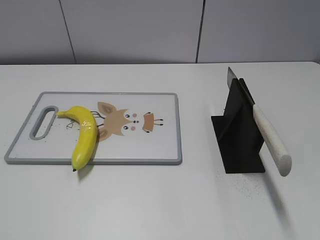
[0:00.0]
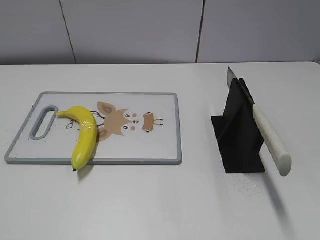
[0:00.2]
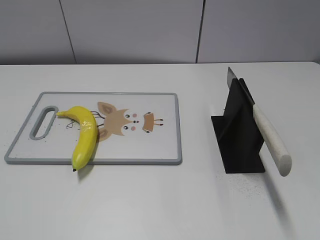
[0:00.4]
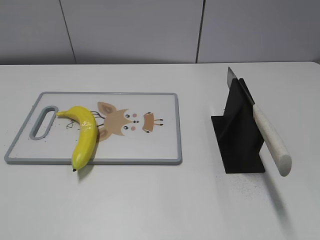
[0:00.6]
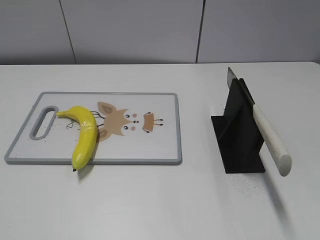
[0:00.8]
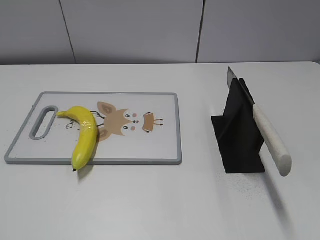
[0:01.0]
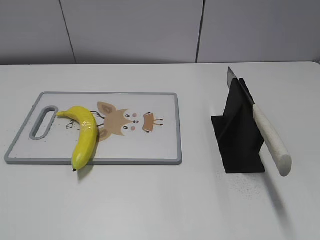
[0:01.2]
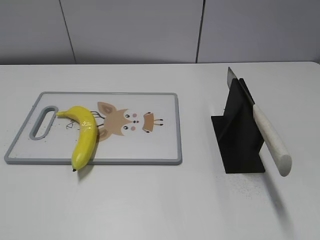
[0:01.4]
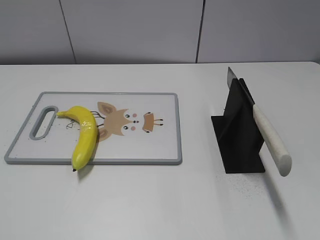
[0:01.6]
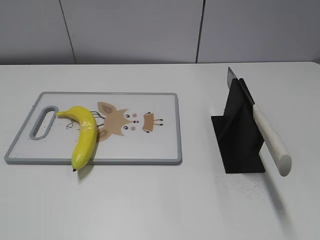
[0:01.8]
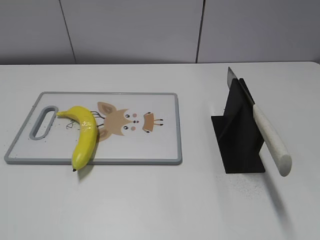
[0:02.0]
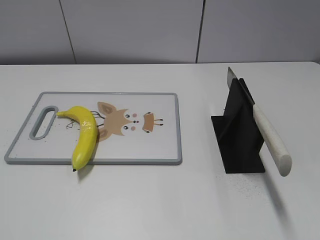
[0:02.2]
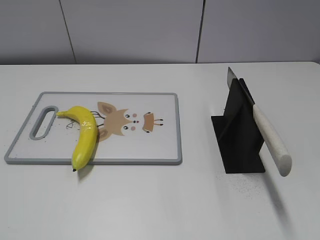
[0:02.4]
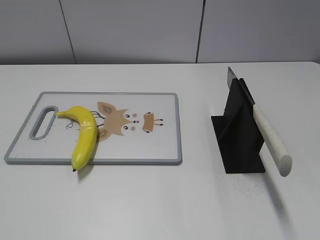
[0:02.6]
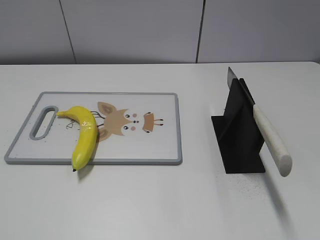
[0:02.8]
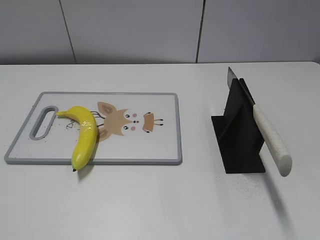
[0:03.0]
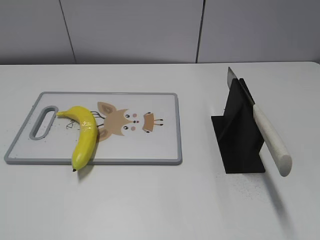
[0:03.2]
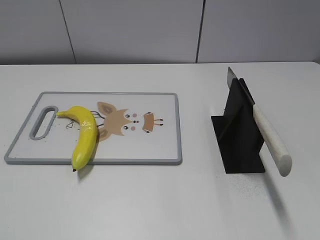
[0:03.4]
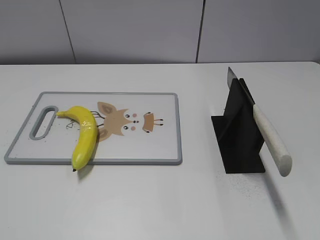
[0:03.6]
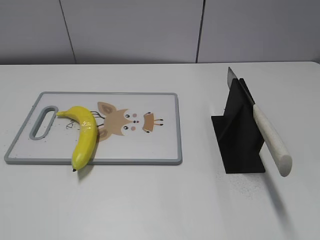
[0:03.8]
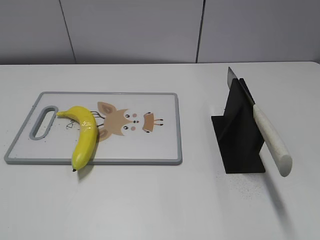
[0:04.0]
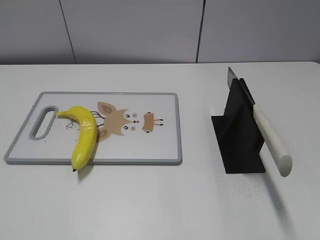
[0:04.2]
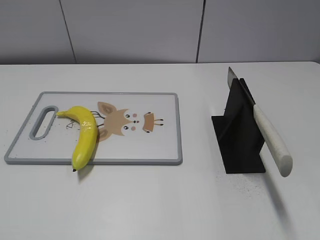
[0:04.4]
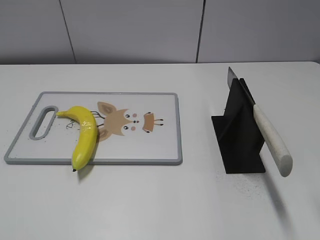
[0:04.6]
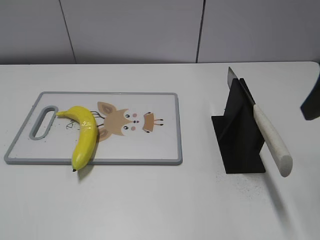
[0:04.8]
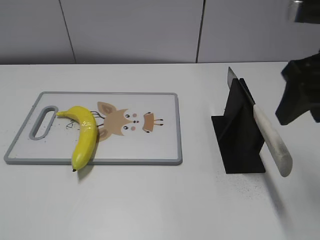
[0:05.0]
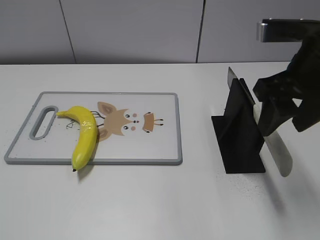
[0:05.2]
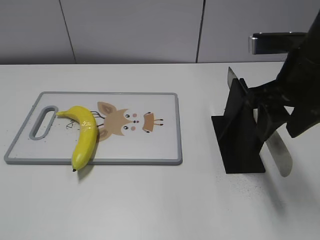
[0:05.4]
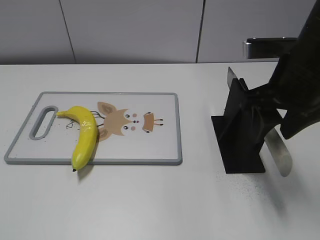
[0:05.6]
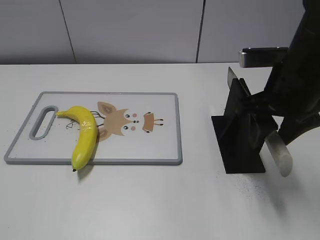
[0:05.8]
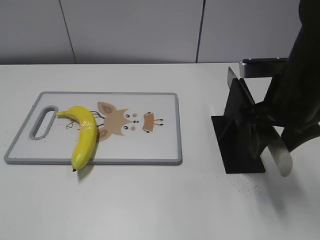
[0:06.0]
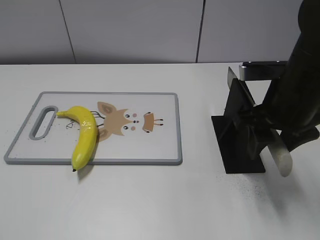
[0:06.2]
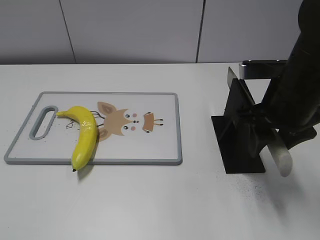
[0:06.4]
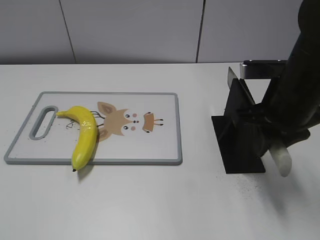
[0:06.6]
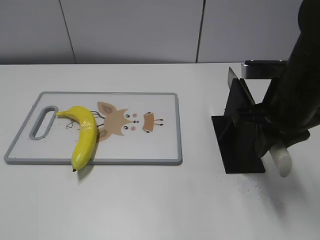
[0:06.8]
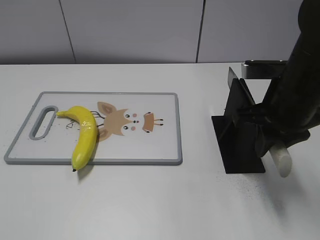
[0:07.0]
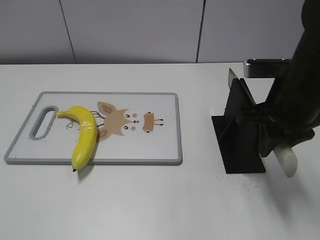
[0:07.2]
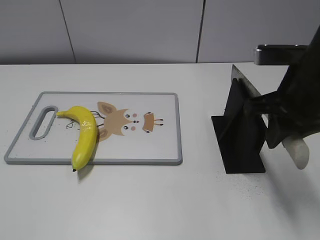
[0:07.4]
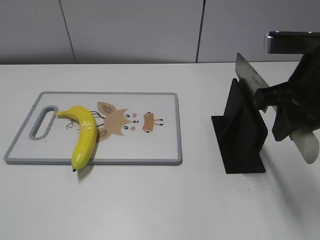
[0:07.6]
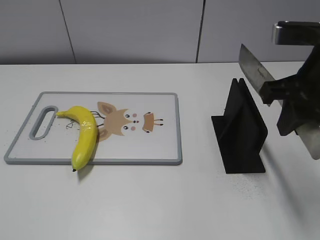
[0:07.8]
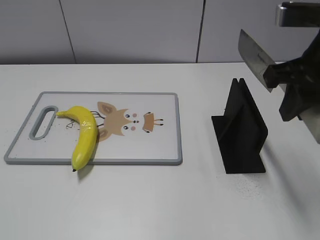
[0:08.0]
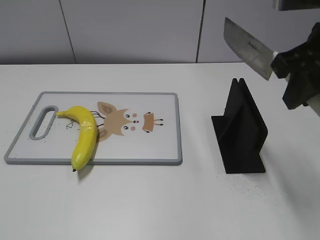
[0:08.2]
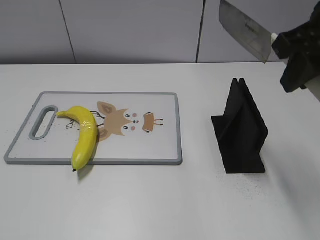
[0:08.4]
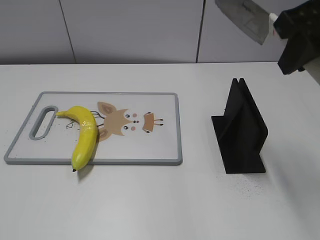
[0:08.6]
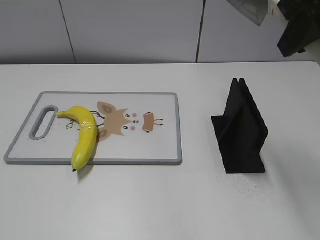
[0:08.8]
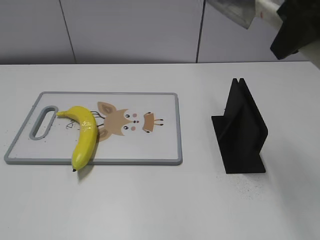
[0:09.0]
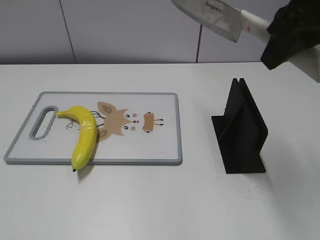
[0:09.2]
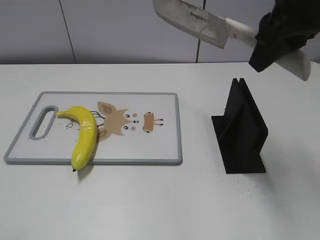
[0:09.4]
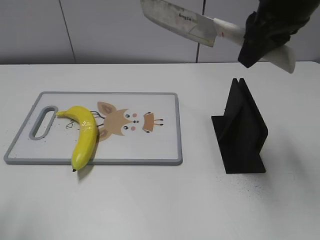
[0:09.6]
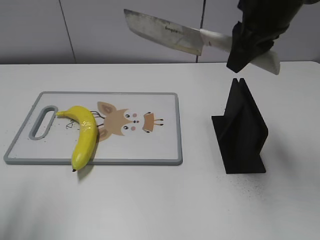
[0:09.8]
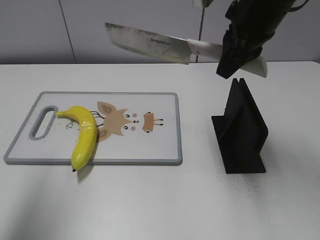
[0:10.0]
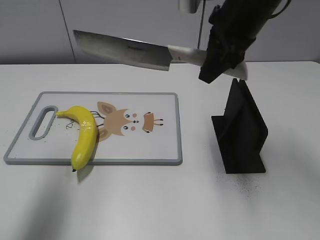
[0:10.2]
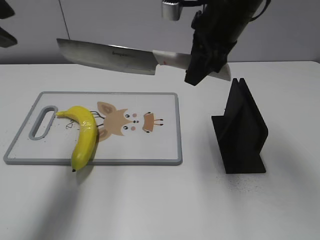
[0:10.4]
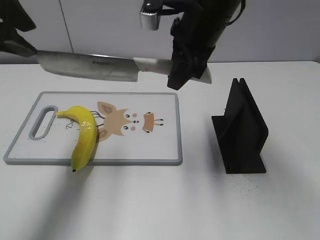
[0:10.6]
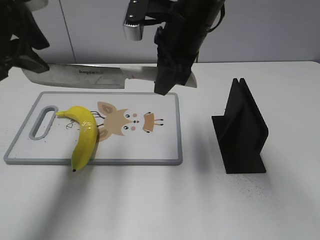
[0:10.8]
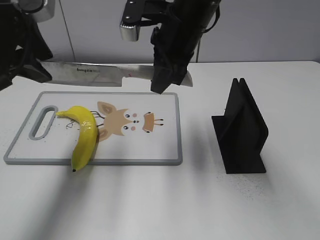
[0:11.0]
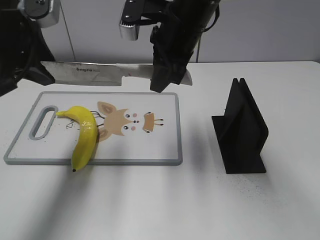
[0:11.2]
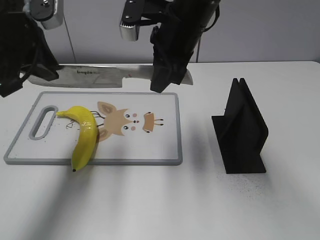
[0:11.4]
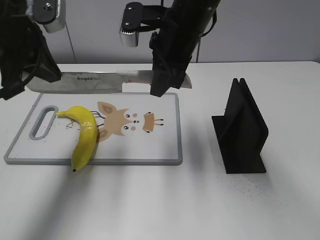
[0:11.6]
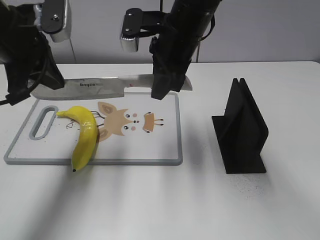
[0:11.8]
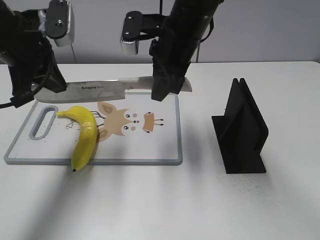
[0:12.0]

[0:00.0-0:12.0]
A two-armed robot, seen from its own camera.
Task of the whole recording: cut plastic banana.
Step, 0:00.0 to 0:08.6: Grab the knife handle with your right hand.
0:04.4 to 0:06.0: The right gripper heads forward, to the left and downward, covering approximately 15 cm.
0:06.0 to 0:07.6: The right gripper closes up.
0:07.6 to 0:09.0: The right gripper is displaced upward by some 10 cm.
0:09.0 to 0:10.4: The right gripper travels forward, downward and to the left by about 15 cm, while the left gripper shifts about 25 cm forward.
0:10.4 to 0:12.0: The right gripper shifts some 10 cm to the left and downward. The left gripper goes about 15 cm downward and forward, and closes.

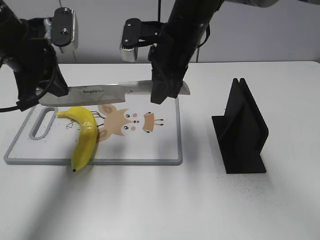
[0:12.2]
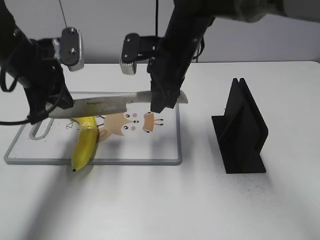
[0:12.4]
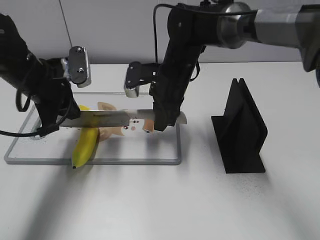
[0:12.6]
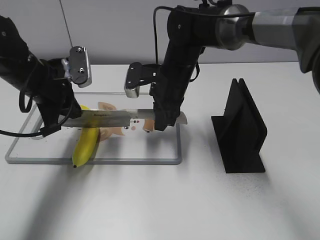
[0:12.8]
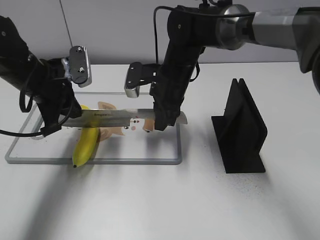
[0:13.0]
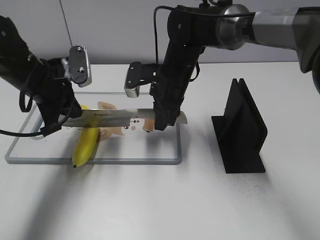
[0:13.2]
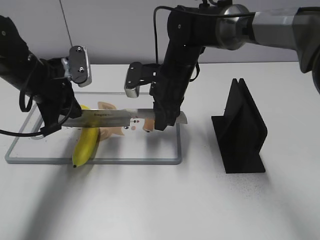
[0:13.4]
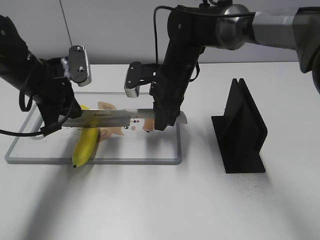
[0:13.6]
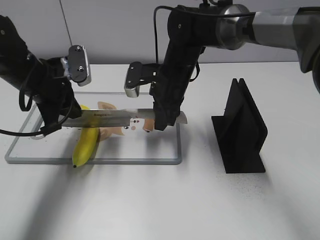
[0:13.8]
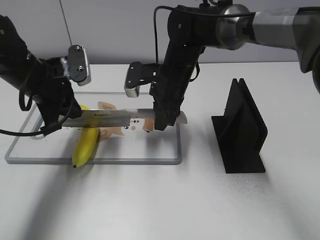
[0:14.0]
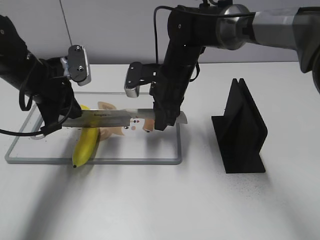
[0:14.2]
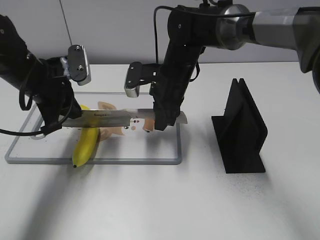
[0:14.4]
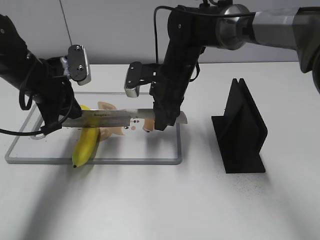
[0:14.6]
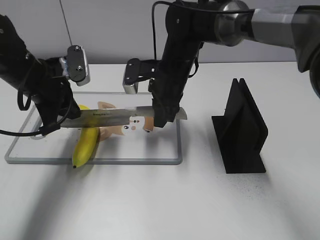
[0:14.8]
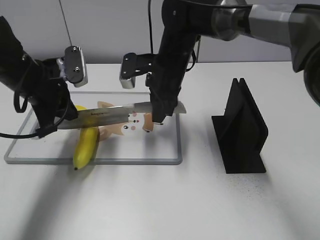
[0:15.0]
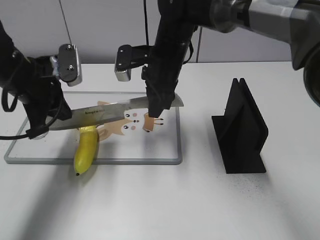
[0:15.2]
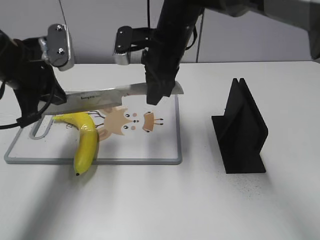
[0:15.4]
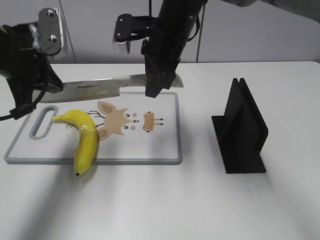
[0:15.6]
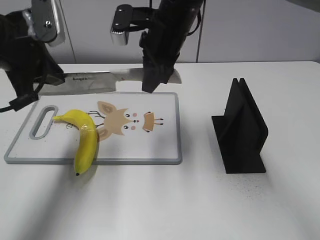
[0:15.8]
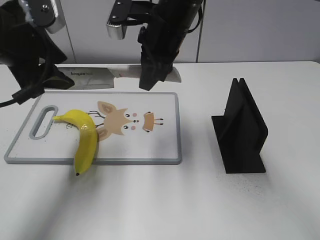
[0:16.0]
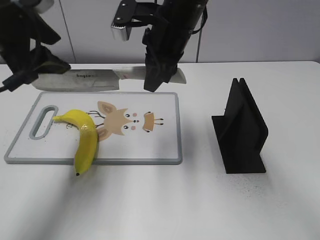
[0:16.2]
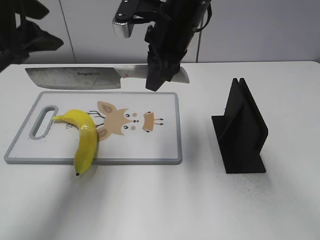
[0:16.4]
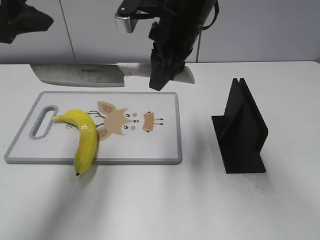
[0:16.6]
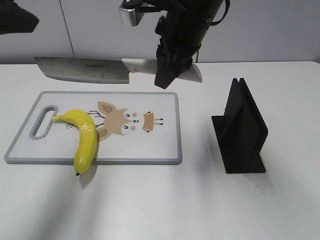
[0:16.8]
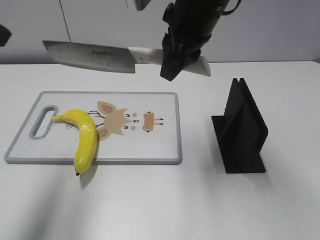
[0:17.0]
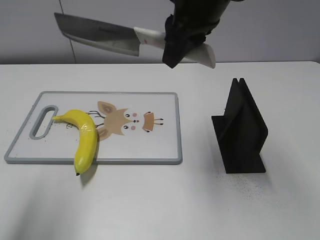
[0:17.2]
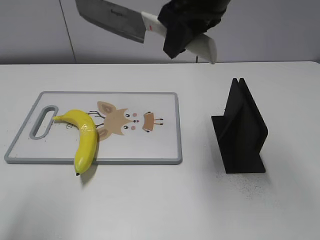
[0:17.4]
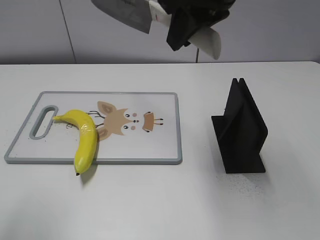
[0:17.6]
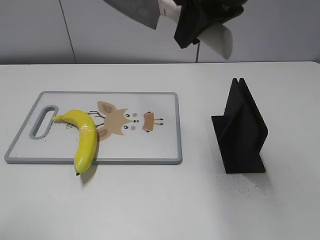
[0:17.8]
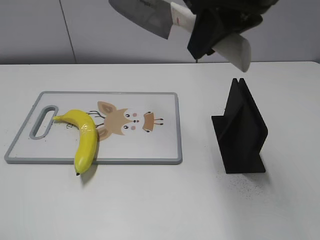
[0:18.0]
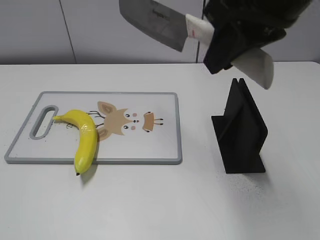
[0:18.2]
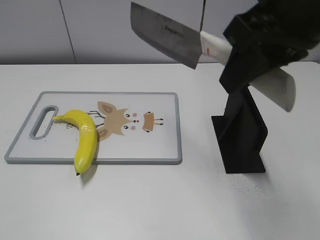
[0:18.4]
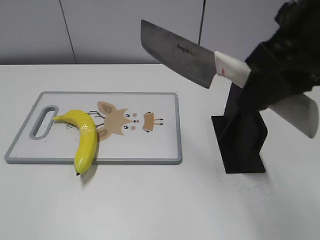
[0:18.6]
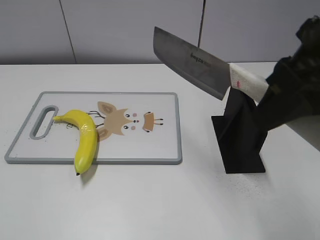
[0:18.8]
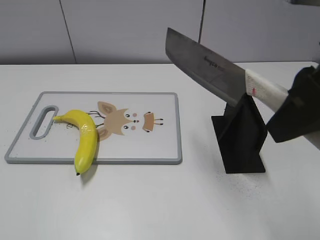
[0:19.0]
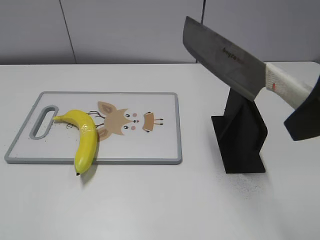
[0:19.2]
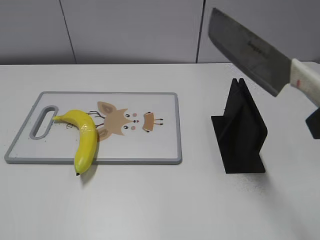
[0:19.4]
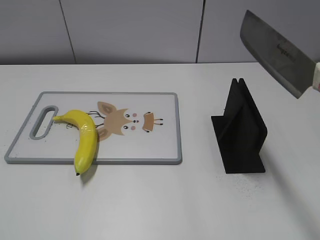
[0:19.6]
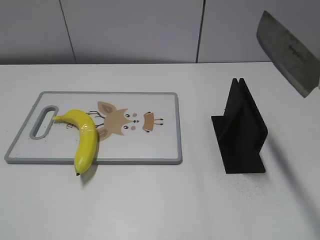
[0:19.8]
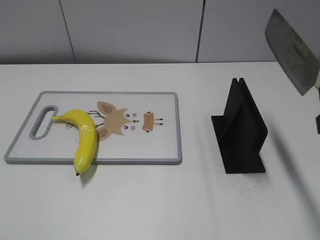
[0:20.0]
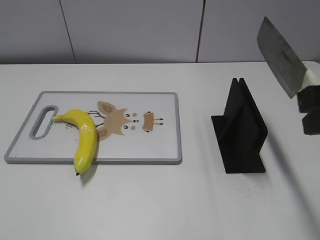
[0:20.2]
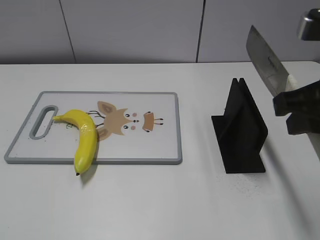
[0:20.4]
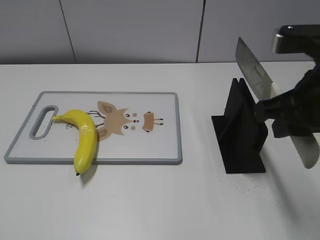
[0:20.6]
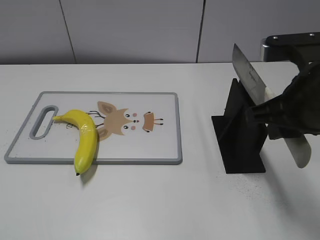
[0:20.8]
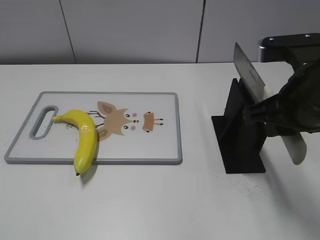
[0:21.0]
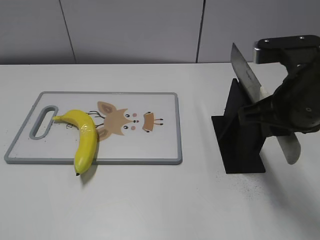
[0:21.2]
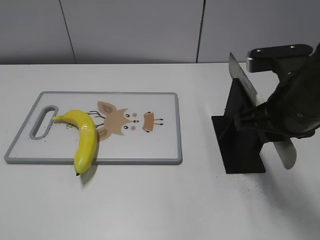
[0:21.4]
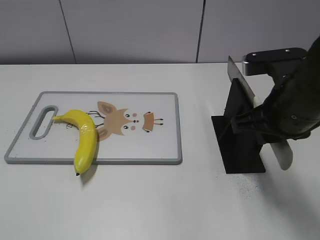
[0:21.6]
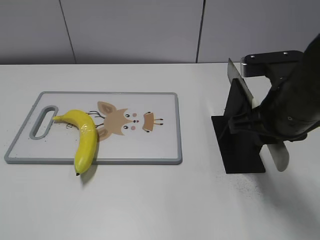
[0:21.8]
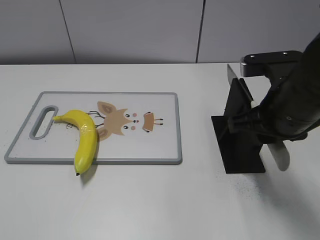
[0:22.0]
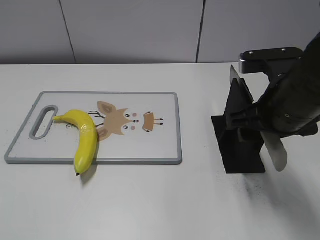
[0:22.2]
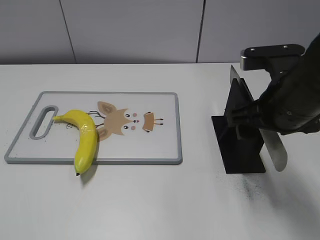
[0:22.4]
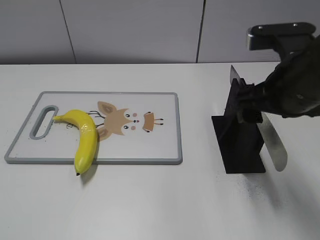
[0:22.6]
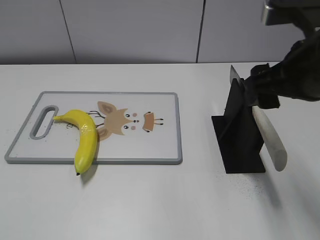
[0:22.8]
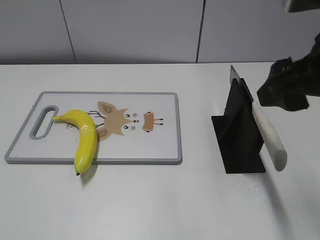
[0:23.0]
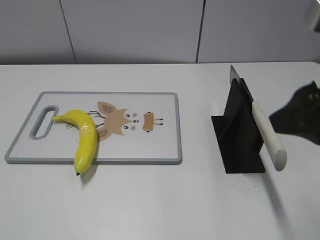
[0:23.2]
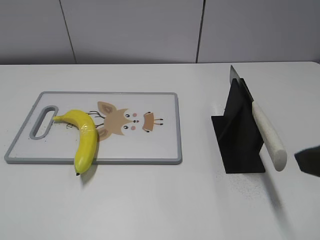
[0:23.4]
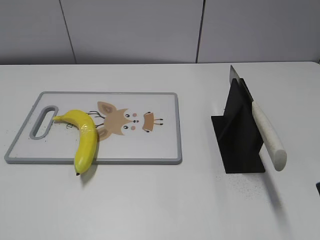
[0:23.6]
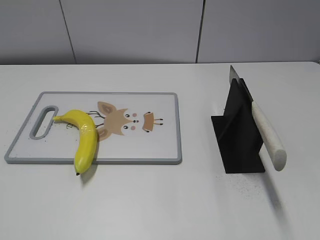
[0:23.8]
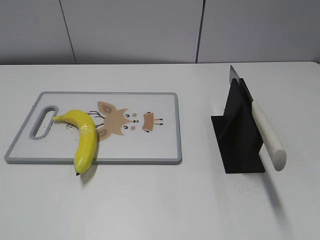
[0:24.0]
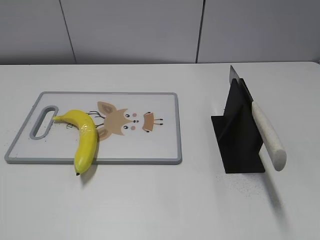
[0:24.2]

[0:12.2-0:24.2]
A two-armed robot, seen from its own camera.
Task of the whole recording: cut plastic banana.
Step, 0:12.2 to 0:14.2: Hold the blade with your left hand.
Step, 0:14.4 to 0:18.6: Cut the banana with your right hand.
Step, 0:18.8 to 0:19.6: Secure the blade with your left hand.
0:12.2 to 0:13.8: Both grippers move downward, about 10 cm.
0:13.8 to 0:15.2: The grippers move only a little.
0:15.2 to 0:16.6: The right gripper heads upward, covering some 10 cm, while the left gripper shifts approximately 15 cm upward, and opens its fingers.
0:16.6 to 0:18.2: The left gripper goes about 20 cm backward. The right gripper shifts roughly 15 cm backward, upward and to the right.
0:18.2 to 0:19.8: The left gripper moves about 5 cm; the right gripper moves backward and to the right, roughly 15 cm.
0:19.8 to 0:21.2: The right gripper is displaced downward and forward by some 15 cm.
0:21.2 to 0:22.6: The right gripper opens its fingers.
0:22.6 to 0:24.2: The right gripper goes approximately 25 cm backward and to the right.
